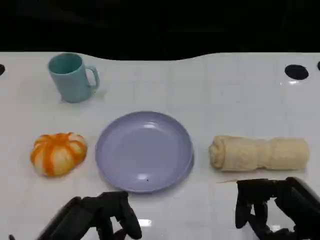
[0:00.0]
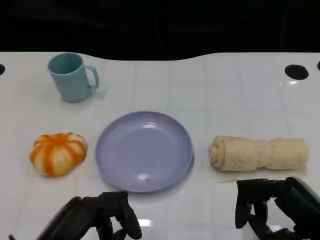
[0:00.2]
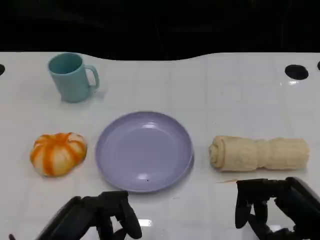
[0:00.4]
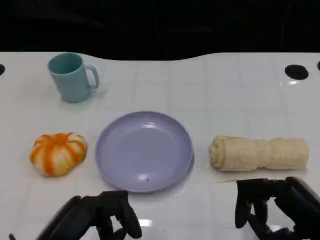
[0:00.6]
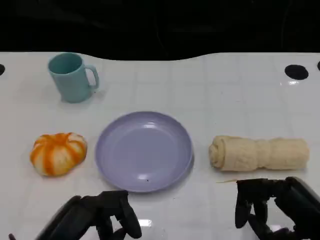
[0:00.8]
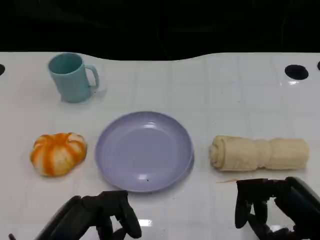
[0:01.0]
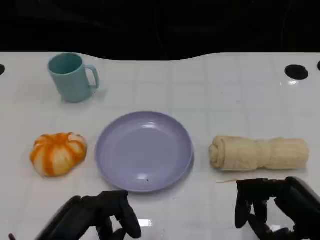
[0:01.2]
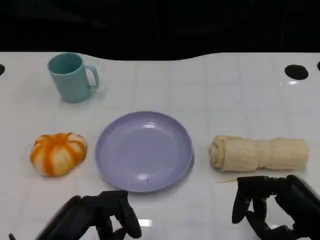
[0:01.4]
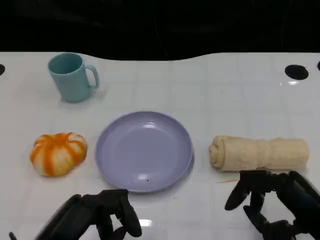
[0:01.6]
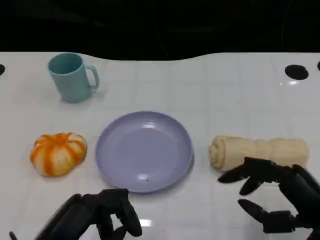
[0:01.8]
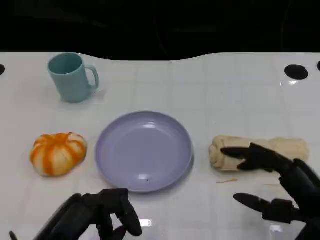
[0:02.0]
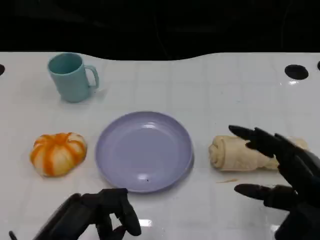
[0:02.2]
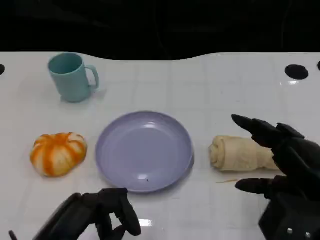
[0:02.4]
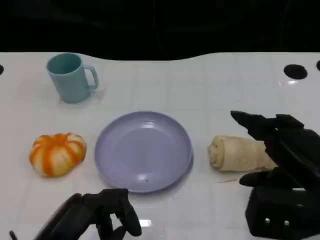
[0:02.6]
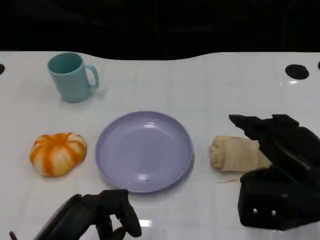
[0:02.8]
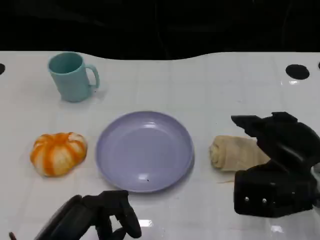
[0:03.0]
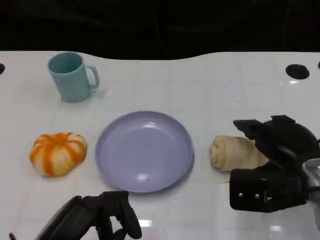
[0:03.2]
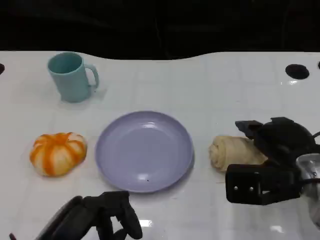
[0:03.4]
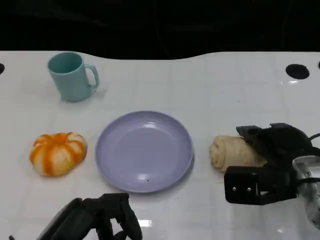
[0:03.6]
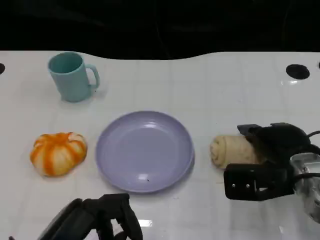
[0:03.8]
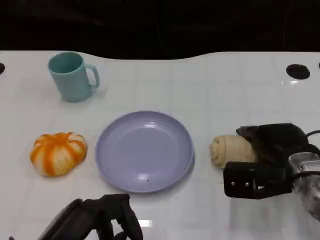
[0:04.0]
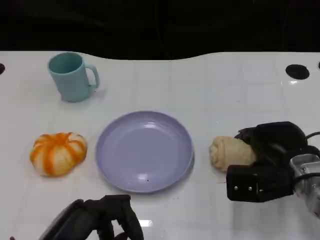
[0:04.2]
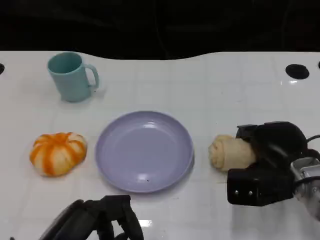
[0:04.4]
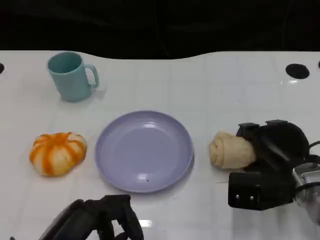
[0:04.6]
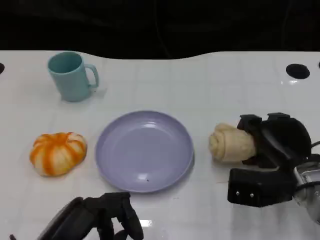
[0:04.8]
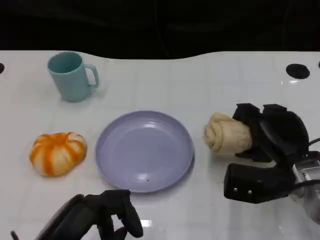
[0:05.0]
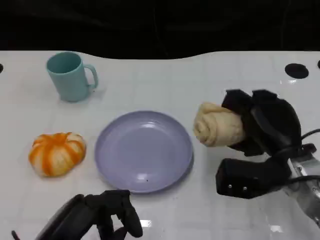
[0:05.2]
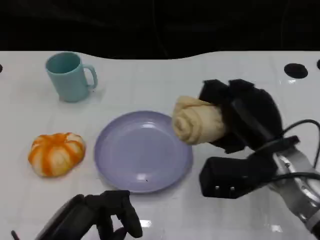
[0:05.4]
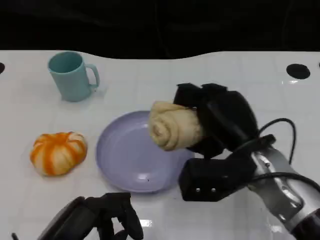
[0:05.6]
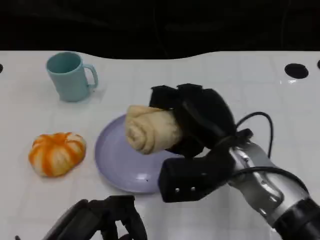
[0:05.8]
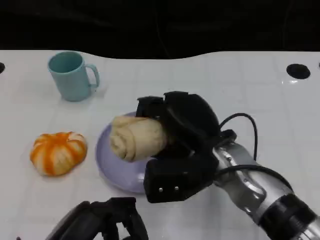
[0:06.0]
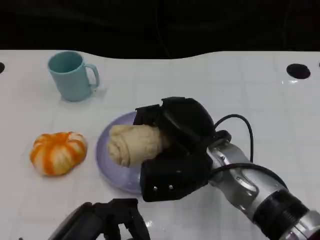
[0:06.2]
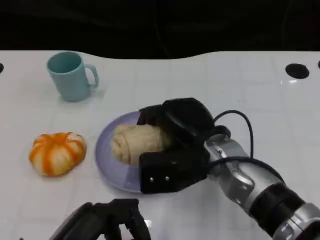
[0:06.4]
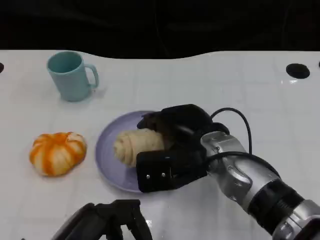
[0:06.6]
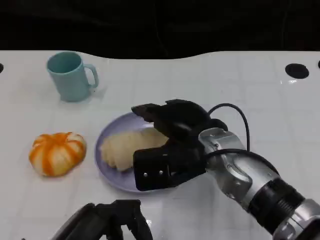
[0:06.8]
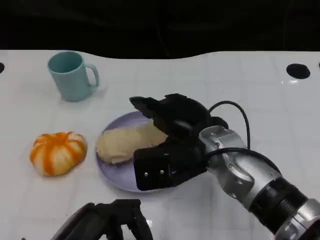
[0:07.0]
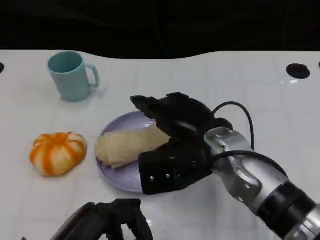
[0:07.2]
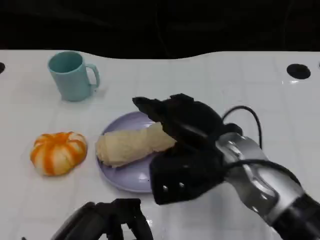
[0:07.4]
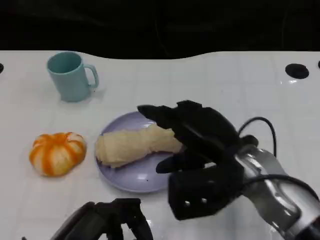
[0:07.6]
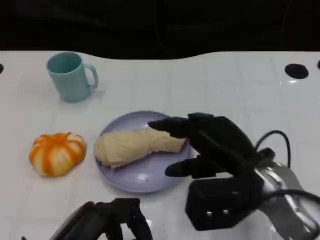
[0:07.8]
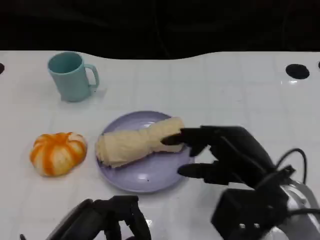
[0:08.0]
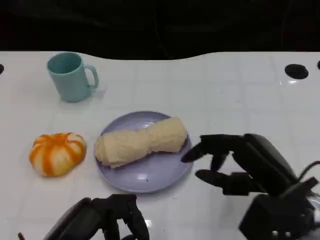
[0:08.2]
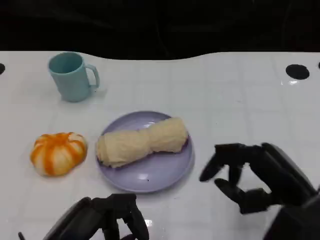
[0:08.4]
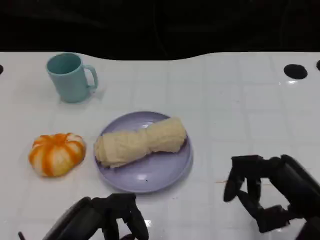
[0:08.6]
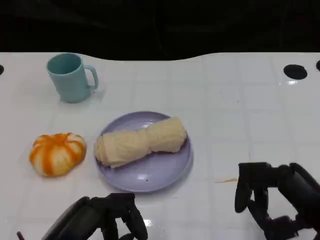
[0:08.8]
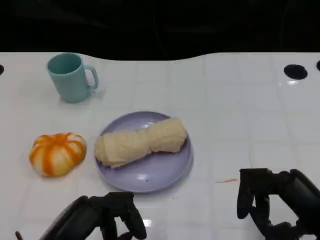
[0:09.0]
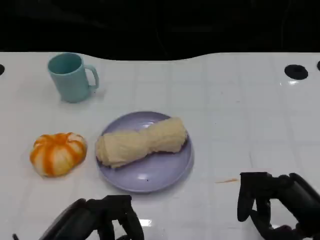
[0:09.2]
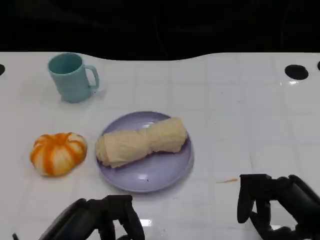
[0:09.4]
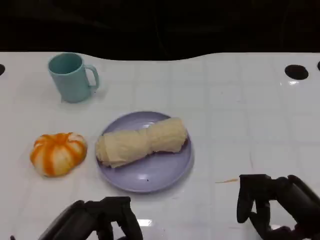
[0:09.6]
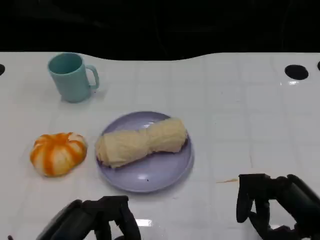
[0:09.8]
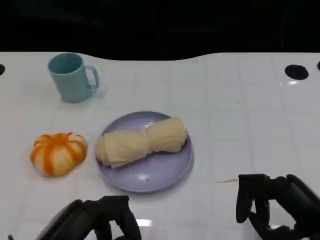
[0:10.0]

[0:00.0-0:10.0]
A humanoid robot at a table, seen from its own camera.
Task of the whole recording: Grasp the towel on the left side of the plate with the left hand and place it into the plate.
0:00.0 to 0:01.4: Both hands stay about where they are.
0:01.4 to 0:02.8: The right hand travels forward by some 5 cm.
0:02.8 to 0:04.2: The right hand heads downward and forward, covering approximately 10 cm.
0:04.2 to 0:05.8: The right hand shifts roughly 15 cm to the left and upward.
0:07.2 to 0:08.6: The right hand heads to the right and backward, covering roughly 20 cm.
0:08.6 to 0:10.0: There are only small adjustments of the hands.

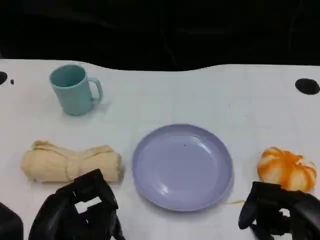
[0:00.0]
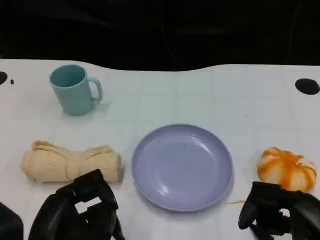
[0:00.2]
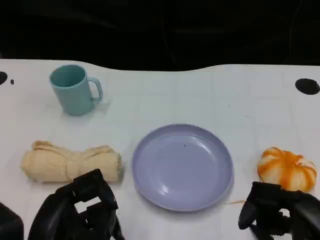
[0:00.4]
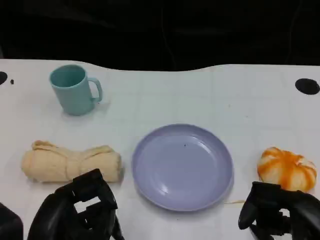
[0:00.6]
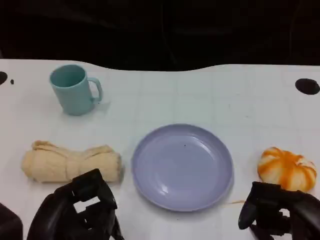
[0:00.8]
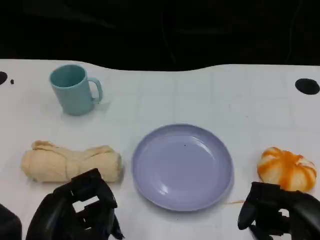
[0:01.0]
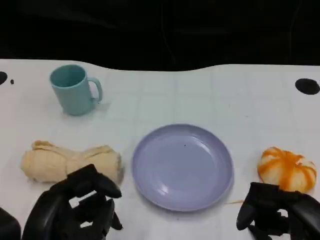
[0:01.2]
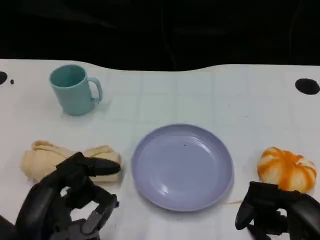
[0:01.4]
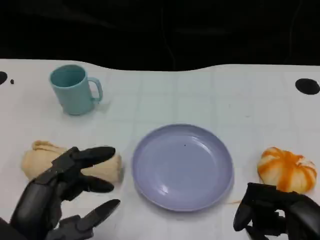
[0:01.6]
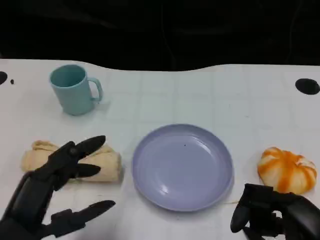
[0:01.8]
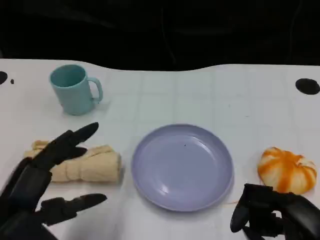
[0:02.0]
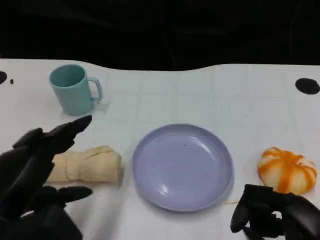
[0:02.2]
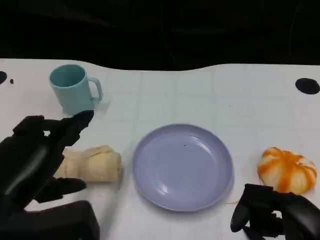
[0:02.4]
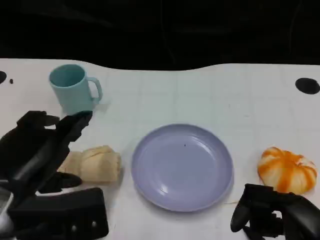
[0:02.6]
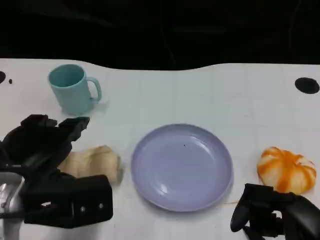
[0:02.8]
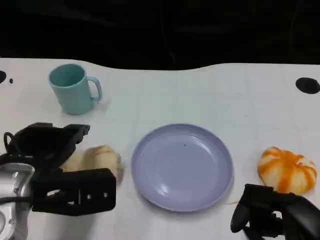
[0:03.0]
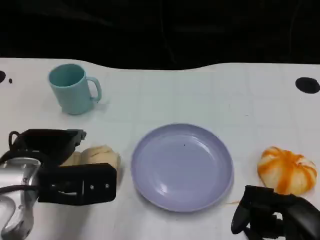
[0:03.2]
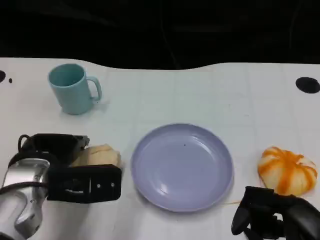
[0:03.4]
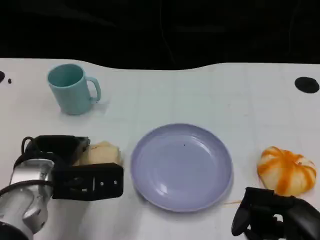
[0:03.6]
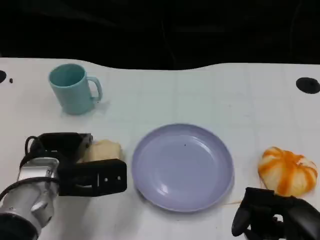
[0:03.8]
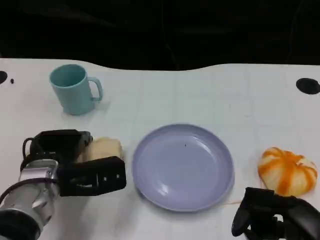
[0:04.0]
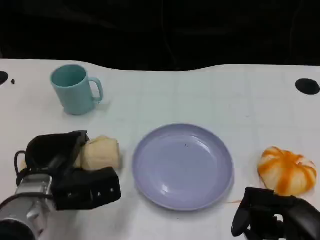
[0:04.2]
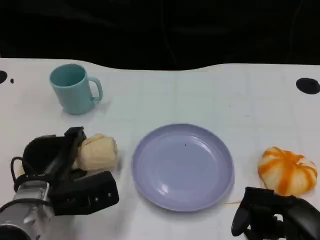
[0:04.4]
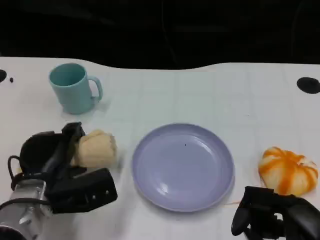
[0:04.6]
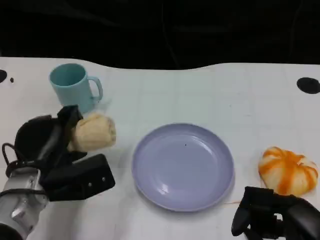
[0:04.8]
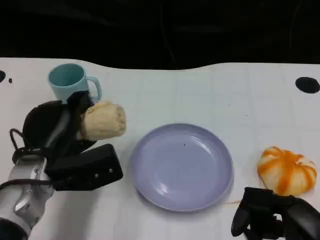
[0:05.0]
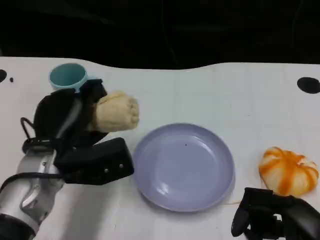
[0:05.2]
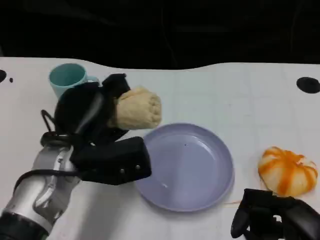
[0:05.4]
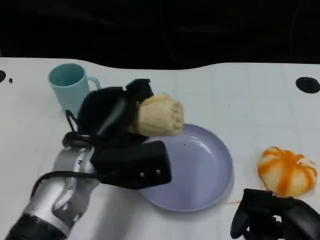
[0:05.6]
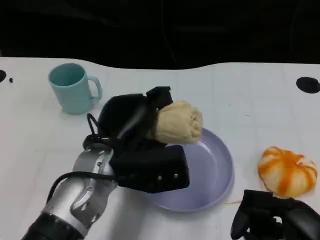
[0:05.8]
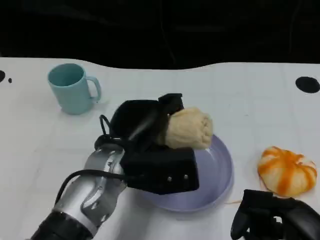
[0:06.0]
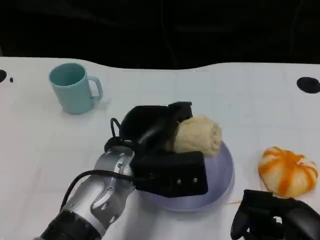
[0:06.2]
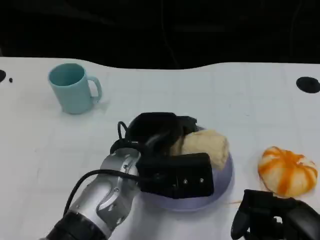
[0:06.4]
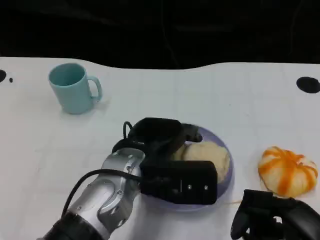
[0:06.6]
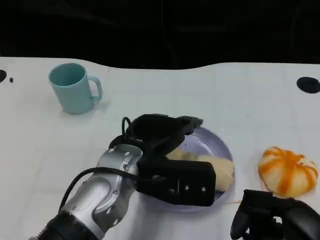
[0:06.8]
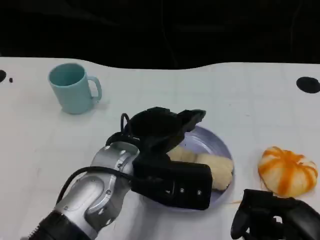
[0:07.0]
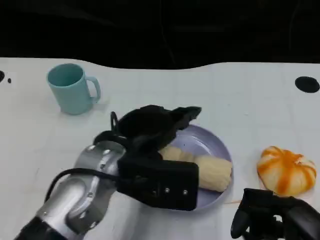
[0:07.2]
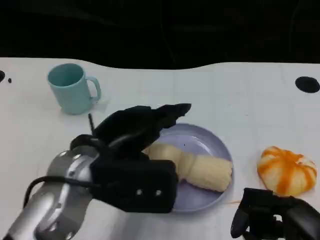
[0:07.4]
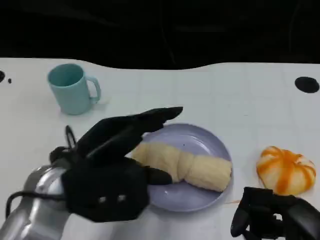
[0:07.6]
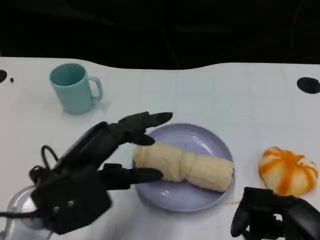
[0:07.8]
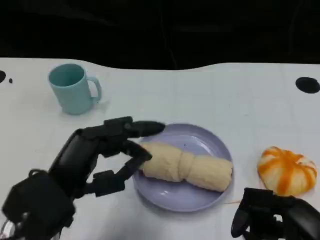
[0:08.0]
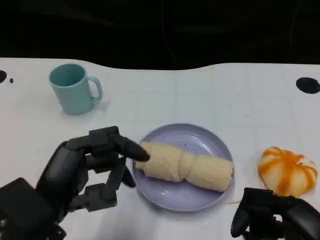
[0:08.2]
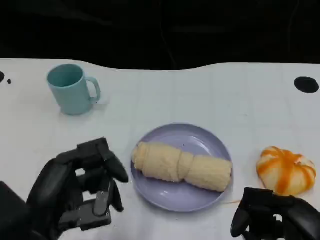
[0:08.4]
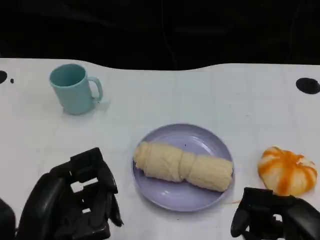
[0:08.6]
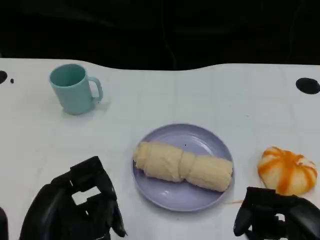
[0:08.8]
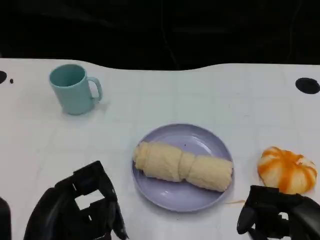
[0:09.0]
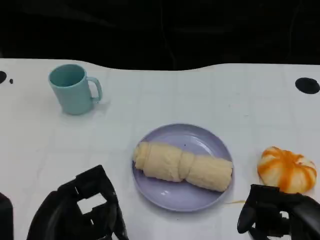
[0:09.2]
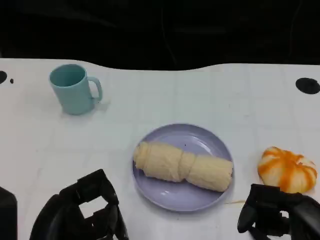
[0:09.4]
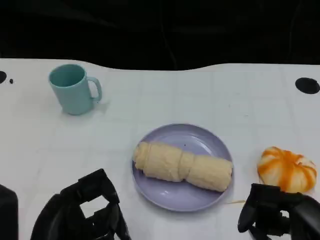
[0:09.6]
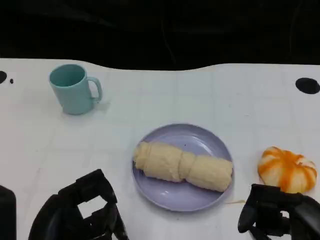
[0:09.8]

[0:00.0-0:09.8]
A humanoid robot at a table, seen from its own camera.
Task of the whole recording: Grasp the towel on the left side of the plate with the left hand and place it into the plate.
0:00.0 to 0:01.4: The hands move only a little.
0:01.4 to 0:02.8: The left hand moves forward, approximately 10 cm.
0:02.8 to 0:04.2: The left hand shifts about 10 cm downward and forward.
0:04.2 to 0:05.6: The left hand moves upward and to the right, roughly 10 cm.
0:07.0 to 0:08.4: The left hand shifts about 15 cm backward and to the left.

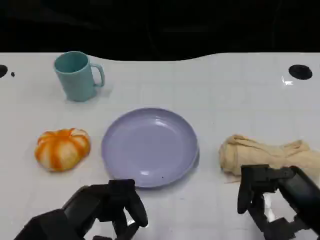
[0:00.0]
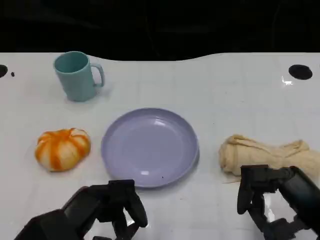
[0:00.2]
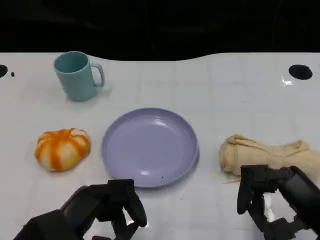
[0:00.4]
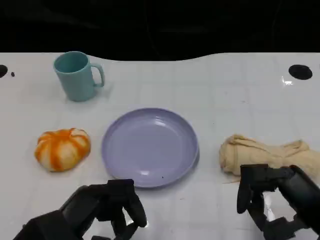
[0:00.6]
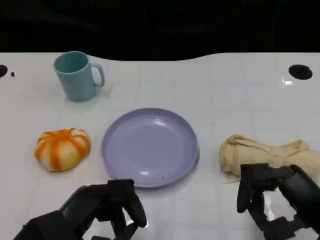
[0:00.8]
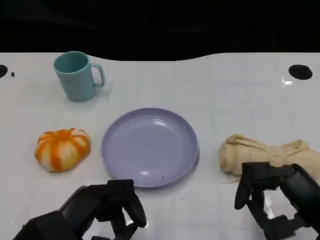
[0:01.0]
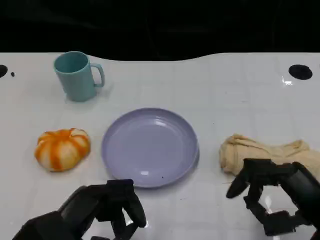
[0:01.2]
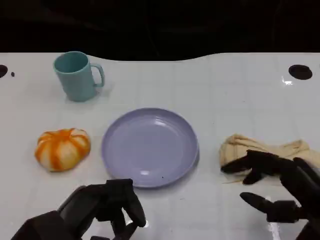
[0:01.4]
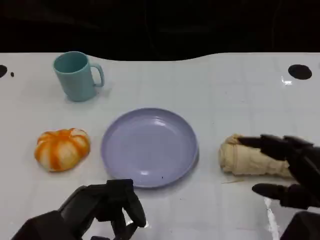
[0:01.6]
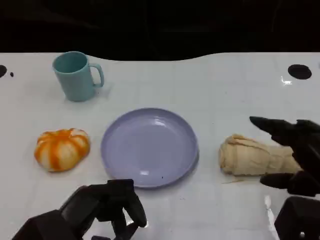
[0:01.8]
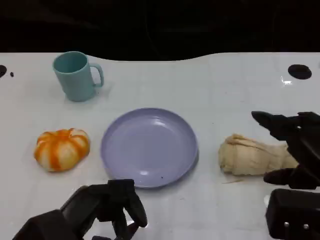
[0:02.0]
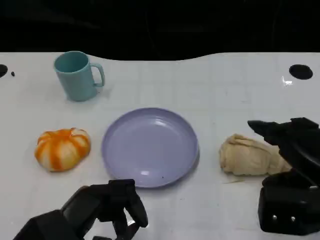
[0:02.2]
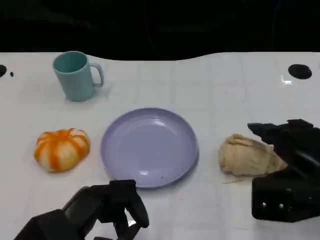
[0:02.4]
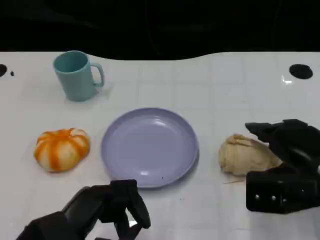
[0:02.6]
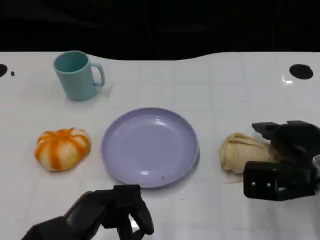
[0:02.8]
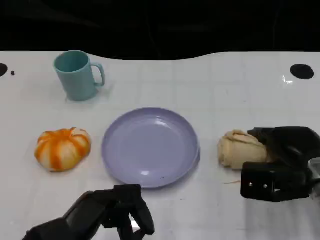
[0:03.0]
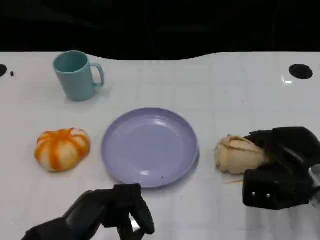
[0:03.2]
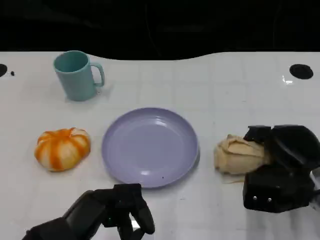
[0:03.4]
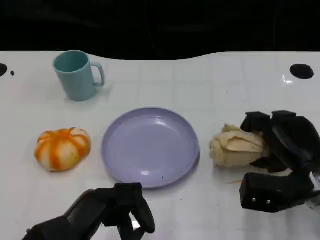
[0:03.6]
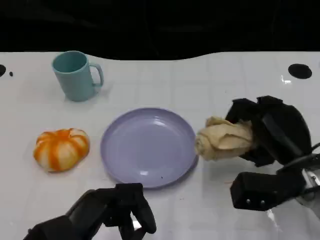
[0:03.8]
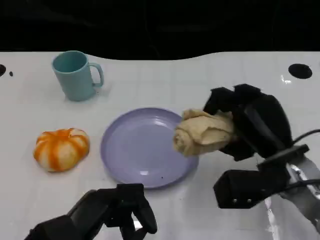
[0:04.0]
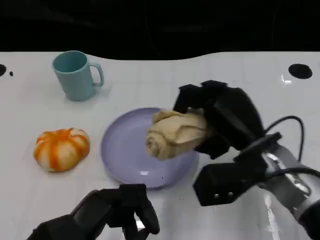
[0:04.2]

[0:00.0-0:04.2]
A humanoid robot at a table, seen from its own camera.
Task of the whole recording: Grasp the towel on the left side of the plate with the left hand and place it into the plate.
0:00.0 to 0:01.4: The hands move only a little.
0:01.4 to 0:02.8: The right hand goes roughly 10 cm forward.
0:02.8 to 0:04.2: The right hand heads to the left, covering about 10 cm.
